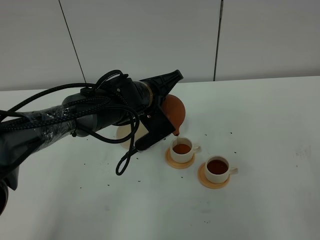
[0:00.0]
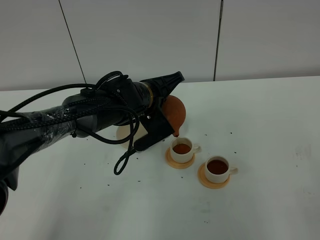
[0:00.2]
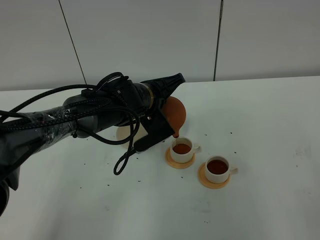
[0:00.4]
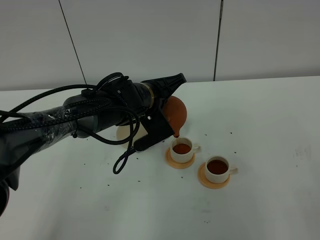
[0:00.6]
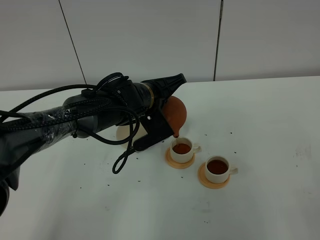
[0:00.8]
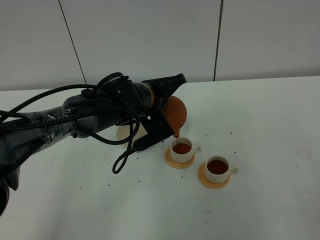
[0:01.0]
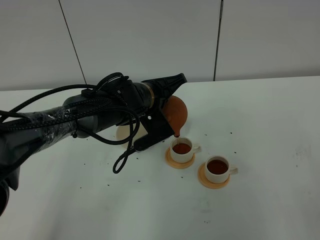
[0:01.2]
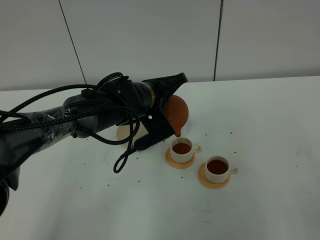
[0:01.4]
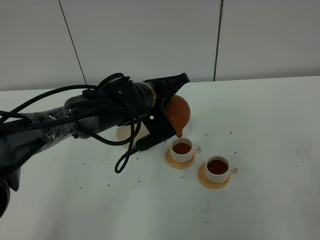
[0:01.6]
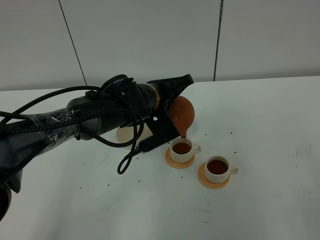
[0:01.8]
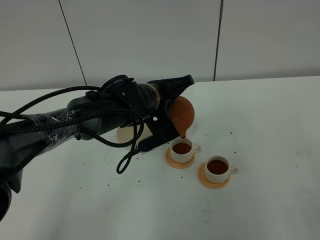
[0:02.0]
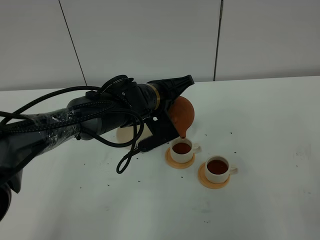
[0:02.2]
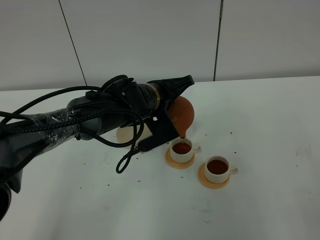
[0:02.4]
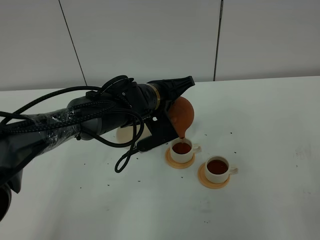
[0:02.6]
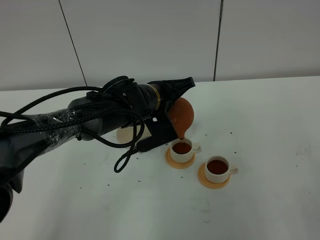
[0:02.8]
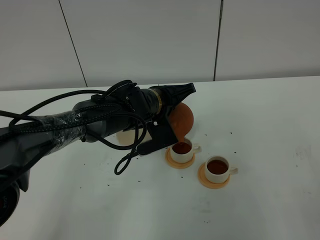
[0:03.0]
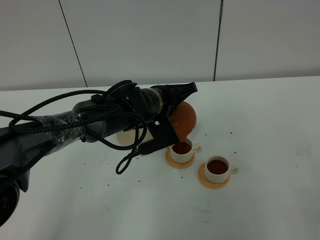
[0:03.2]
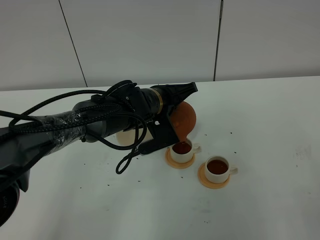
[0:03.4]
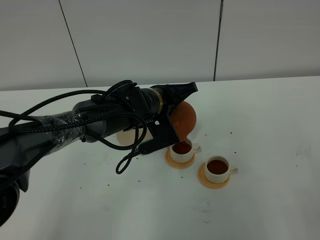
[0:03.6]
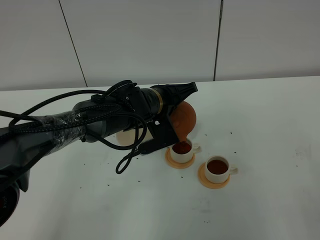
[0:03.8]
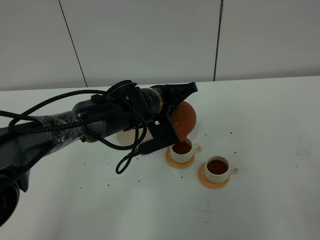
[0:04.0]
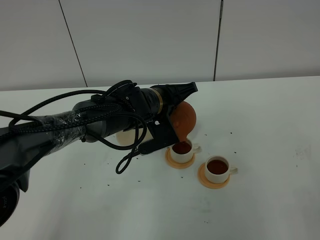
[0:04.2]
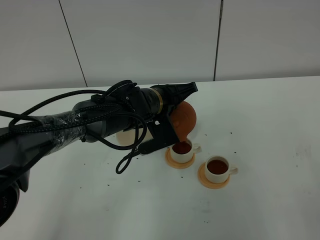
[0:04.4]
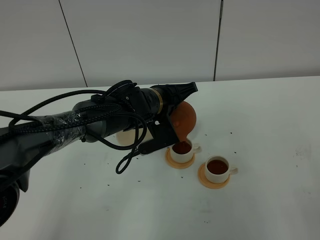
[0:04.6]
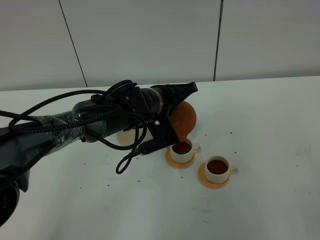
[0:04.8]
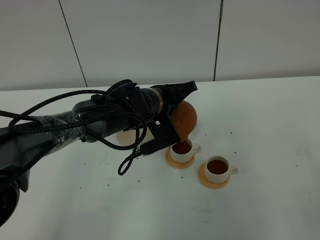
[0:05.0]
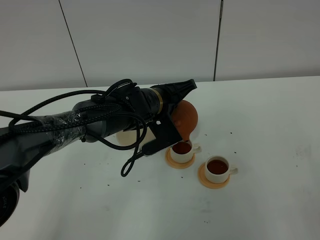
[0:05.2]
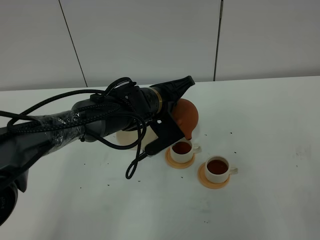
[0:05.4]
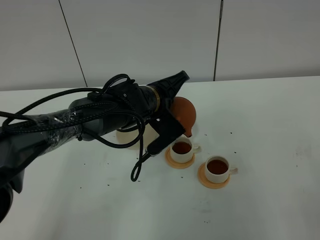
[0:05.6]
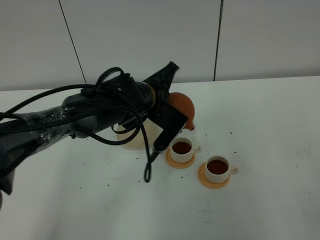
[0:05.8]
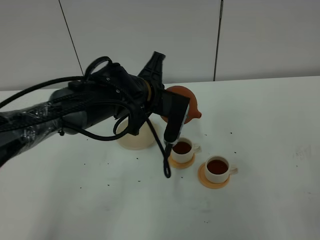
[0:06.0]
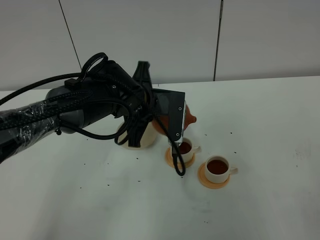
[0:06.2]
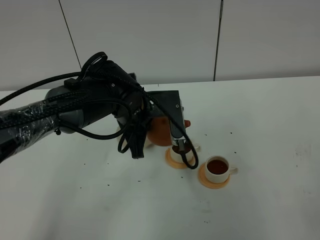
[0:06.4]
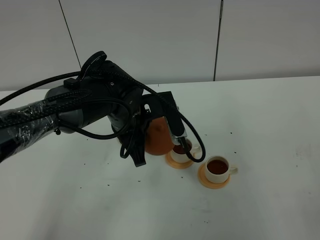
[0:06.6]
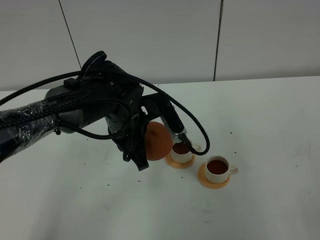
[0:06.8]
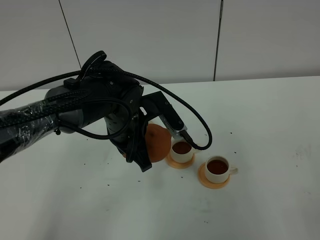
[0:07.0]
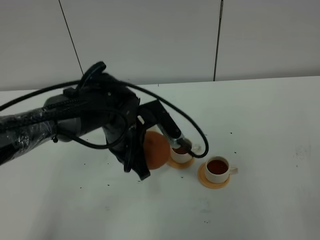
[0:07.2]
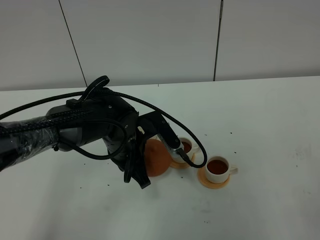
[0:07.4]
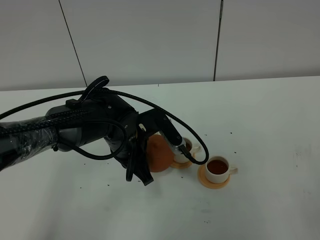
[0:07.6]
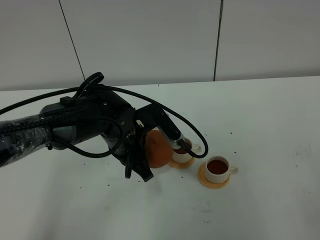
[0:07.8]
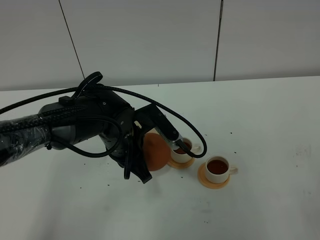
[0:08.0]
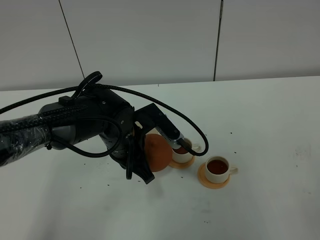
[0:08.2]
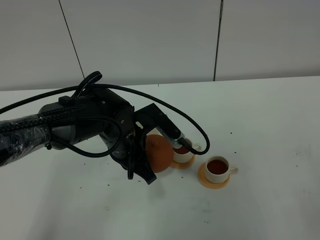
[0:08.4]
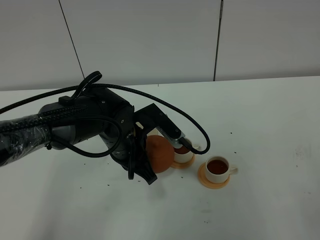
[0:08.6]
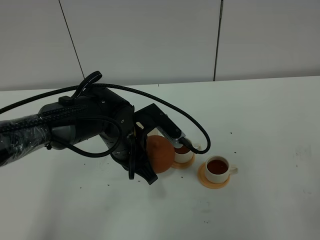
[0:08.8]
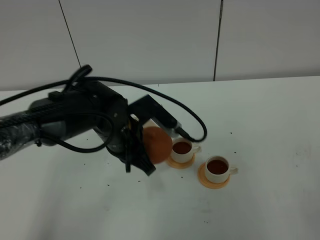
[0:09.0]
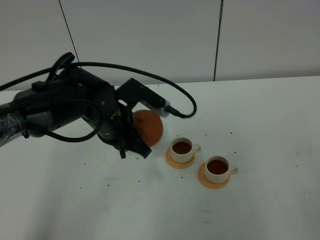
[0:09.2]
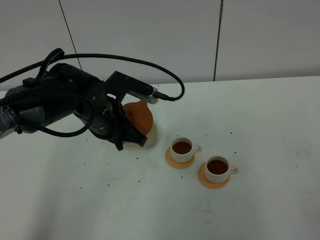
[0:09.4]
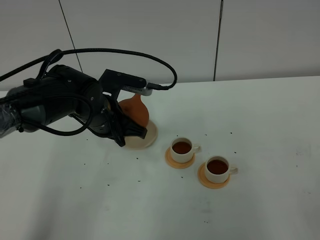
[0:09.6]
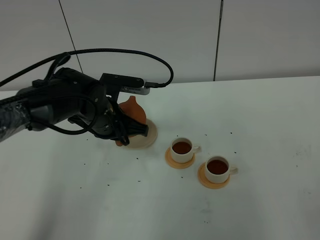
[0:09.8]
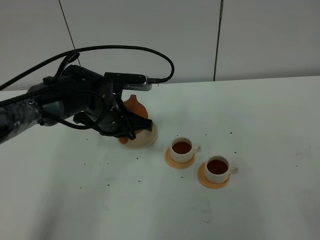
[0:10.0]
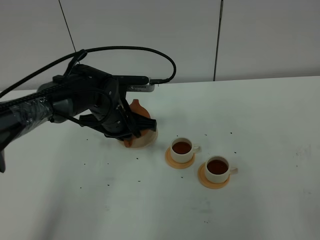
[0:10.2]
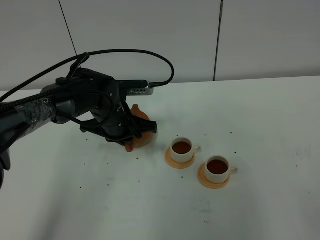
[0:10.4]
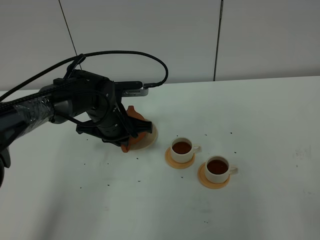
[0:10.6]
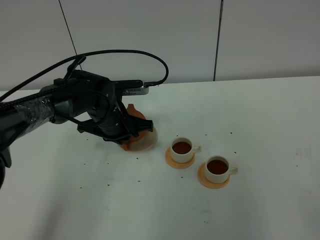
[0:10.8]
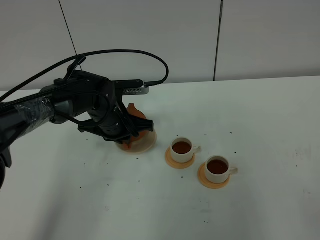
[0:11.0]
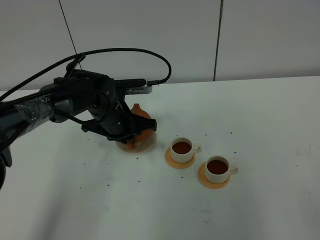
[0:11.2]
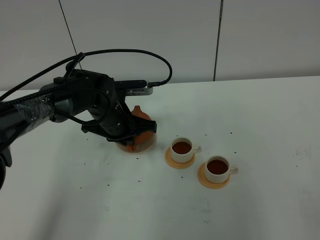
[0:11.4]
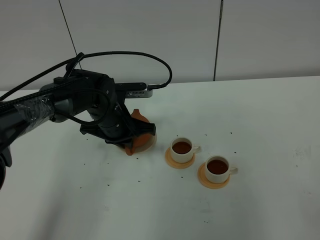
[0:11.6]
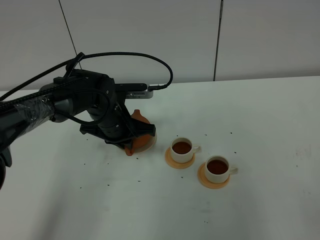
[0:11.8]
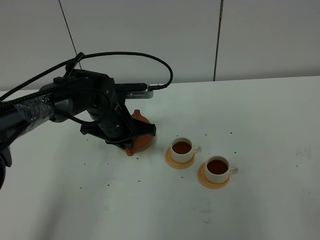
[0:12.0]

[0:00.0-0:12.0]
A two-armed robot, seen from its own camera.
Task of the whole recording: grasp the brown teapot and pour the tea into the two white teacups one by one, put the brown teapot back in its original place.
Step, 0:00.0 to 0:06.2: Pour tea into the teacup with the left gripper.
0:00.0 to 0:03.0: The grippers move only a little.
0:03.0 to 0:04.4: The two grippers keep their place.
0:04.4 to 0:06.0: The left gripper changes place by some 5 cm.
0:06.0 to 0:07.6: The left gripper travels downward by roughly 5 cm.
0:07.6 to 0:09.0: There are only small adjustments of the grippers.
0:09.0 to 0:10.4: The left gripper moves forward, roughly 5 cm.
0:10.4 to 0:12.0: Both grippers stay put.

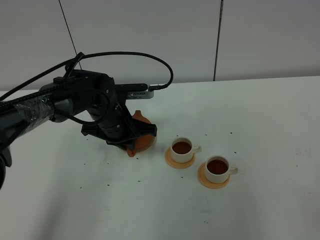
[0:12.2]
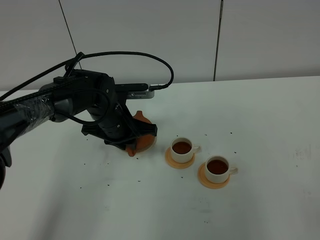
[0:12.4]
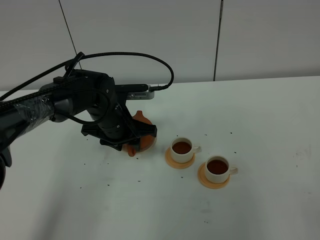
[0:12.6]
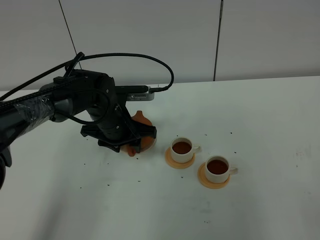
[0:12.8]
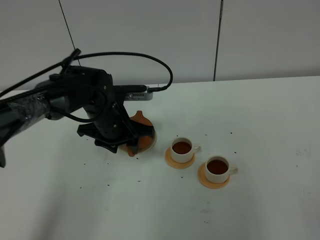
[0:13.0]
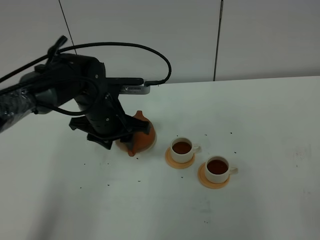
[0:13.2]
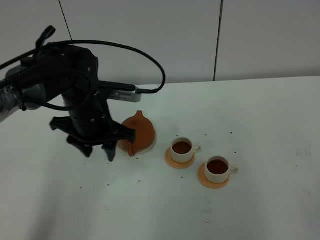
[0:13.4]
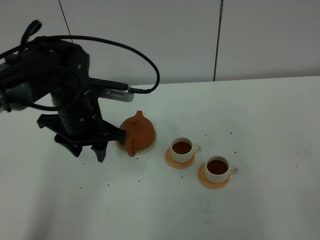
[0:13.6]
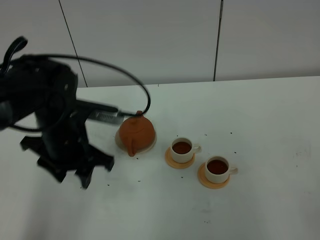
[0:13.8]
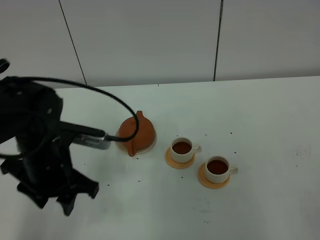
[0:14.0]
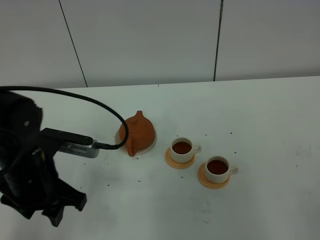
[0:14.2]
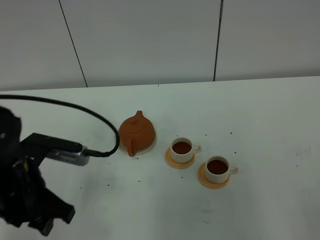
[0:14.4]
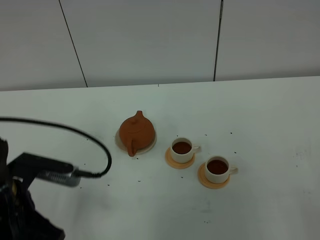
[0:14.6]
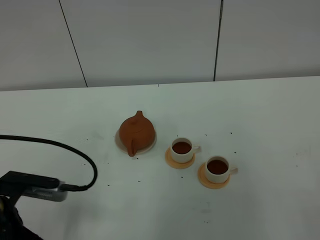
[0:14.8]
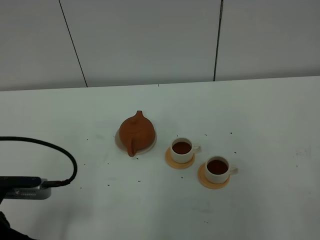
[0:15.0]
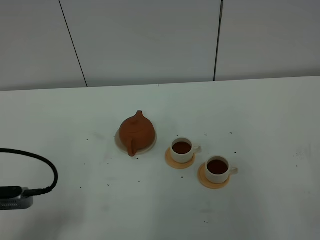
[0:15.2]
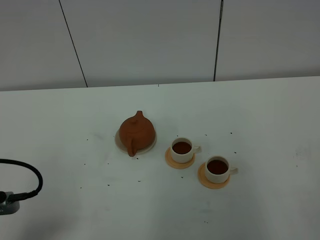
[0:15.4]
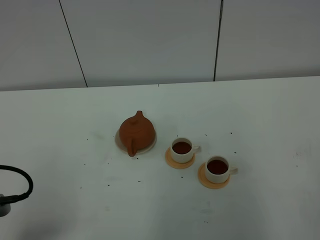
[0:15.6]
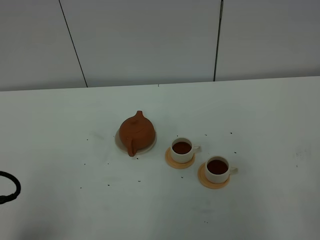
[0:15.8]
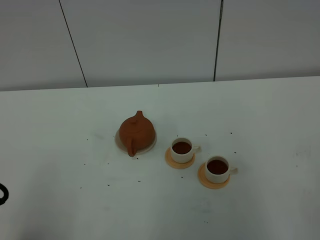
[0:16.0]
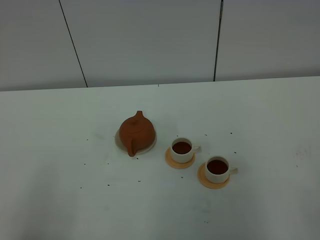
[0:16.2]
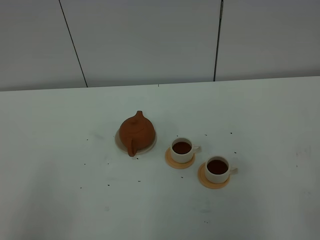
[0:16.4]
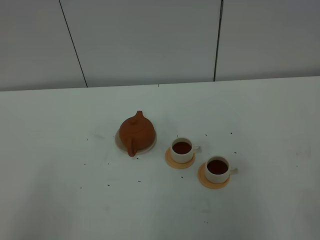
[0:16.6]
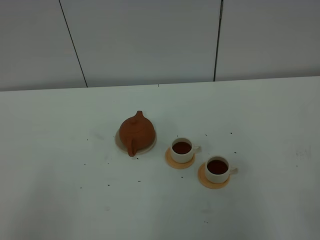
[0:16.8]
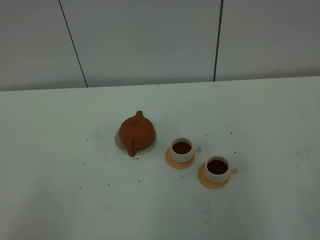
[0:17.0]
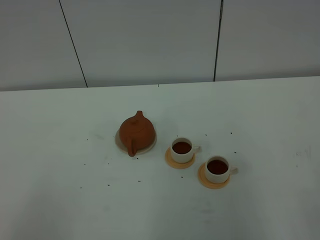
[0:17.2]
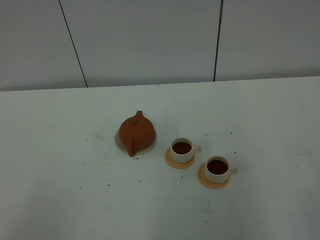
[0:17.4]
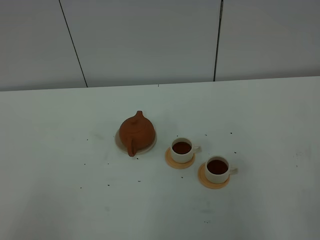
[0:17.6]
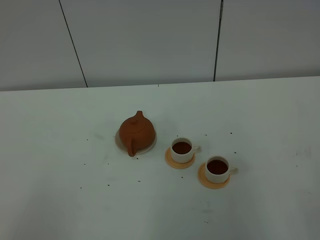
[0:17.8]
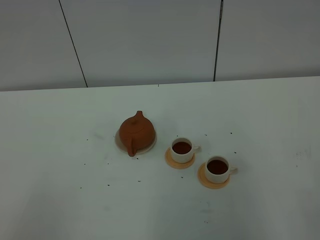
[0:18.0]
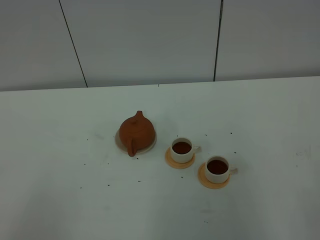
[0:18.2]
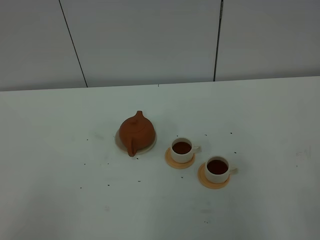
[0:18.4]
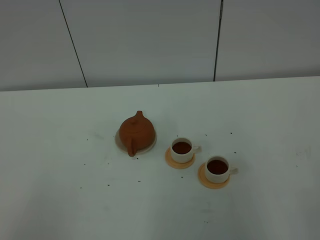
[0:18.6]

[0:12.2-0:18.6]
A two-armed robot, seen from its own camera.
Task of the whole recording: grasp the brown teapot and pour the tea into the two white teacups one by one, put the brown teapot back in its original place.
0:12.2 to 0:13.8: The left gripper goes about 15 cm backward, upward and to the left, and opens.
0:13.8 to 0:15.4: The left gripper heads backward and to the left, covering about 20 cm.
0:15.4 to 0:17.0: The left gripper heads backward and upward, covering approximately 15 cm.
0:17.0 to 0:18.6: The two grippers keep their place.

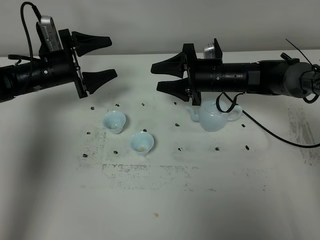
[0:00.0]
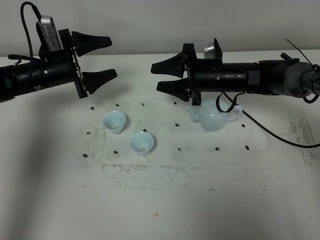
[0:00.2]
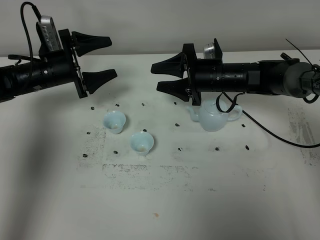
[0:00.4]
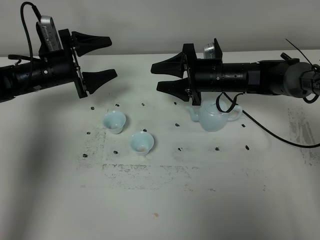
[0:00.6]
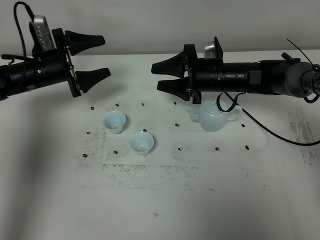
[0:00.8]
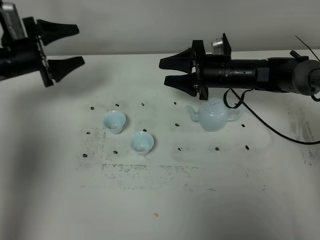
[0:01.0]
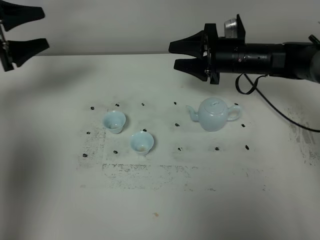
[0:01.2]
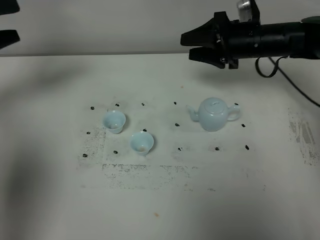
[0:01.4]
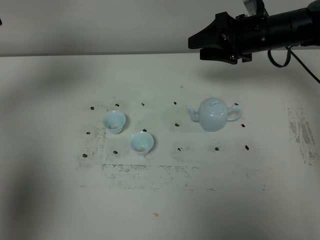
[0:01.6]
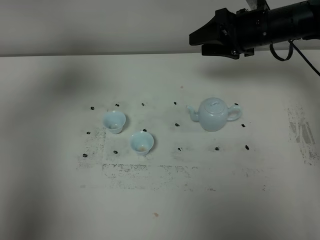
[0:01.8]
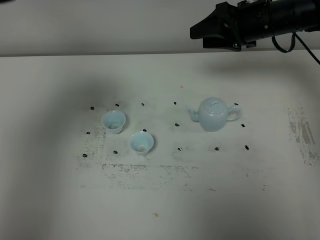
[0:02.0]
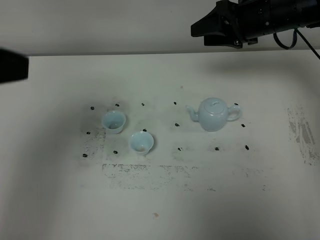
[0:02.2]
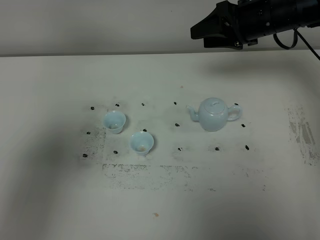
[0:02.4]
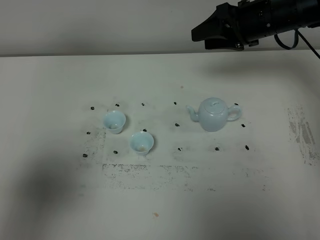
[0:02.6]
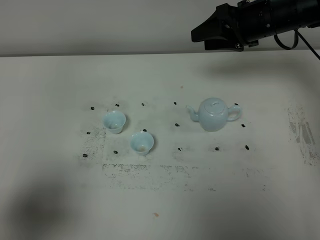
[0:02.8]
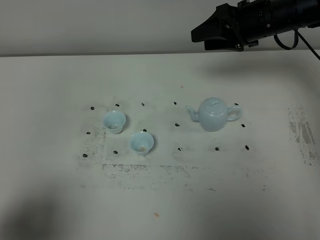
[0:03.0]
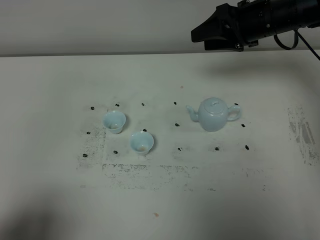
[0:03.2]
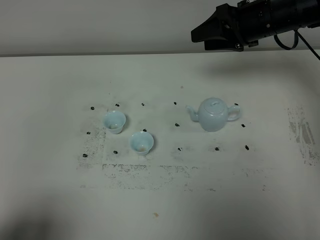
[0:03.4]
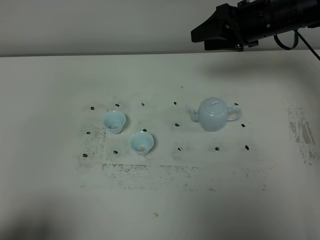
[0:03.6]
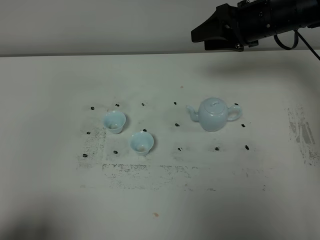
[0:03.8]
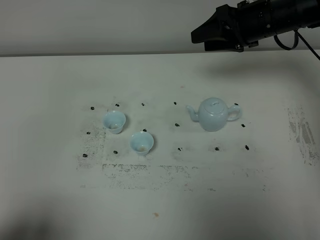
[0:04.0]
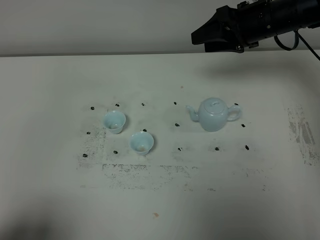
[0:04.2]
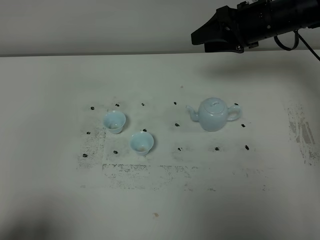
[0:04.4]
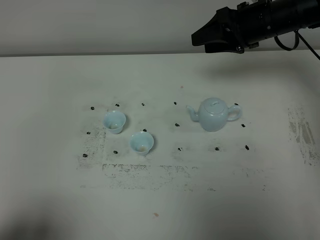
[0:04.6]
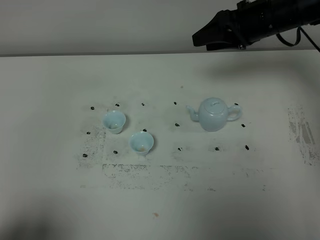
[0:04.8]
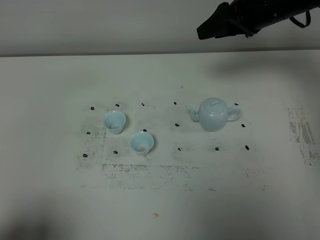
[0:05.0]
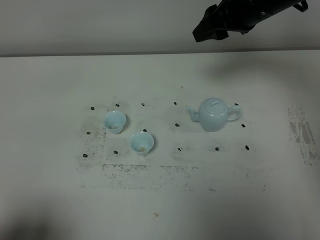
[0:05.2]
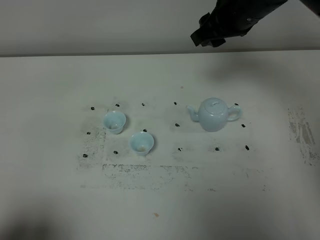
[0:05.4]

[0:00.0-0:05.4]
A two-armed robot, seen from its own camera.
Task of the whole recording: grasp the blue porcelain teapot and pour the tea into the two blue porcelain teacups one by one, put the blue porcelain teapot back in its original place.
0:00.0 to 0:01.4: The right gripper goes about 10 cm upward and to the right, while the left gripper goes approximately 20 cm upward, to the left and backward.
0:01.4 to 0:02.8: The left gripper shifts some 30 cm backward.
0:02.8 to 0:04.0: The left gripper heads backward, covering roughly 5 cm.
0:04.0 to 0:05.4: The right gripper shifts approximately 10 cm to the left and upward.
